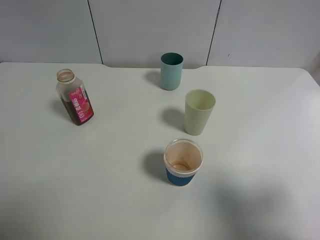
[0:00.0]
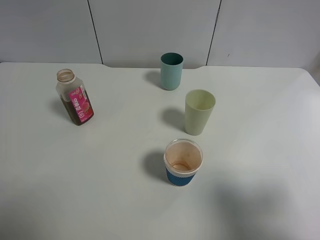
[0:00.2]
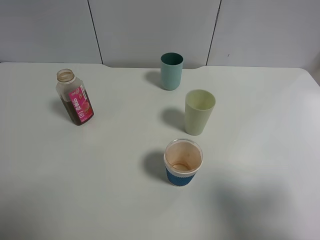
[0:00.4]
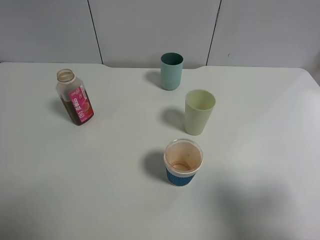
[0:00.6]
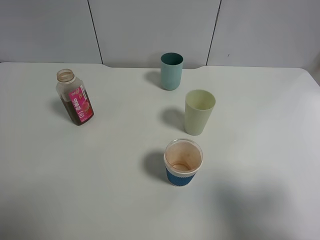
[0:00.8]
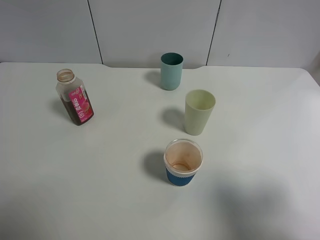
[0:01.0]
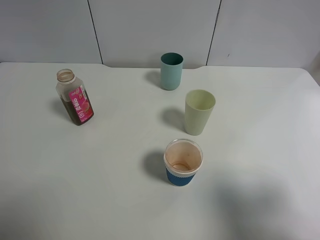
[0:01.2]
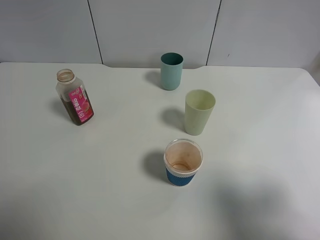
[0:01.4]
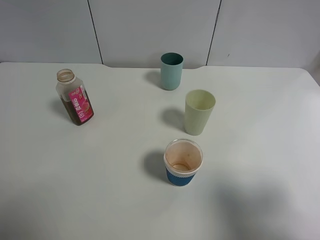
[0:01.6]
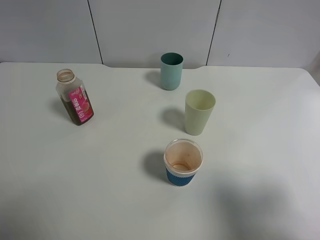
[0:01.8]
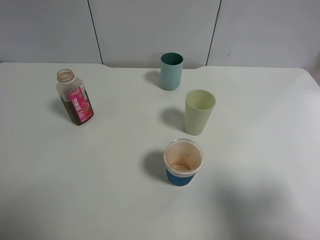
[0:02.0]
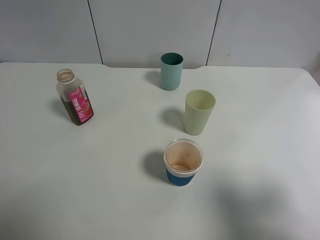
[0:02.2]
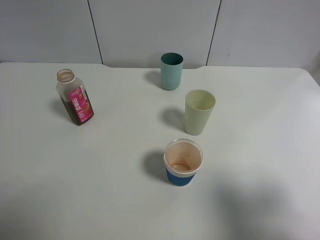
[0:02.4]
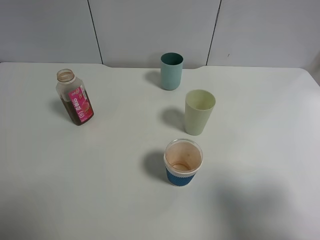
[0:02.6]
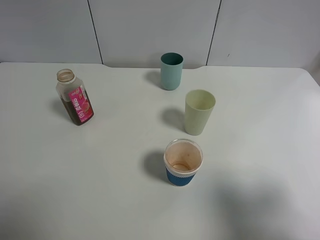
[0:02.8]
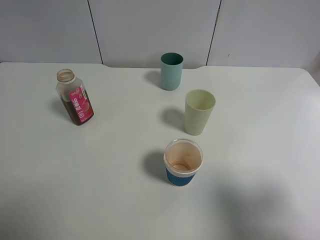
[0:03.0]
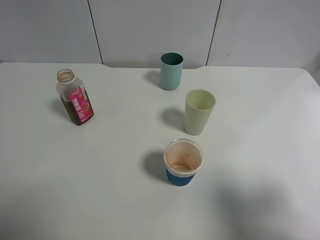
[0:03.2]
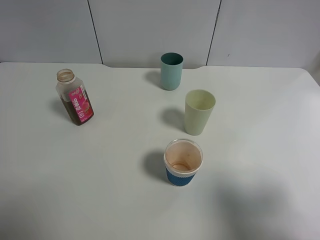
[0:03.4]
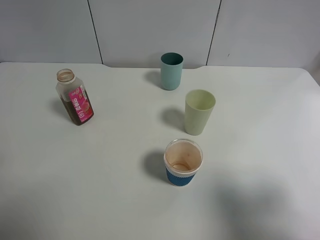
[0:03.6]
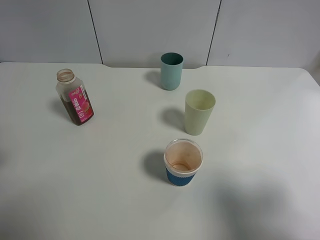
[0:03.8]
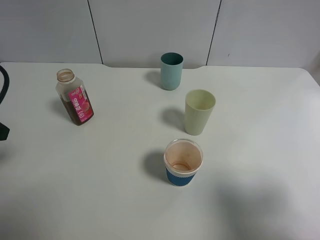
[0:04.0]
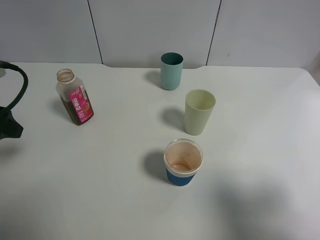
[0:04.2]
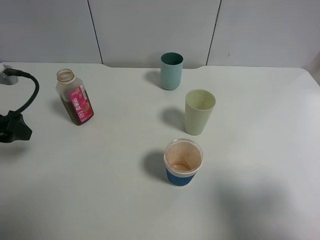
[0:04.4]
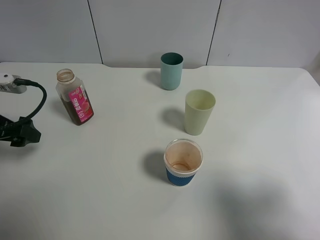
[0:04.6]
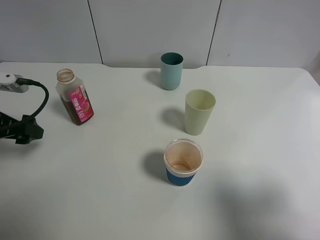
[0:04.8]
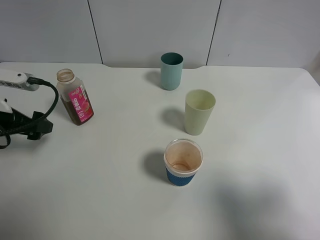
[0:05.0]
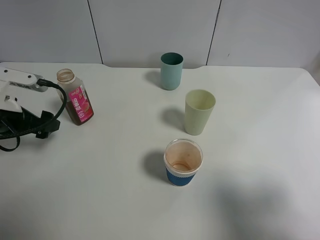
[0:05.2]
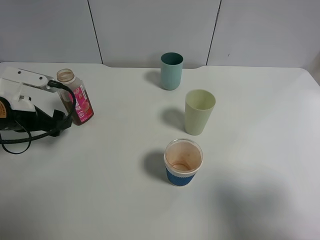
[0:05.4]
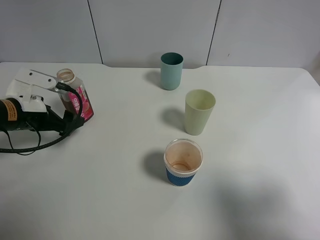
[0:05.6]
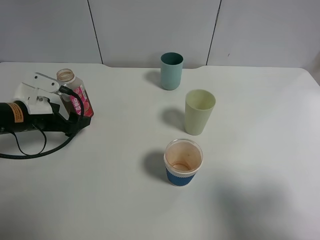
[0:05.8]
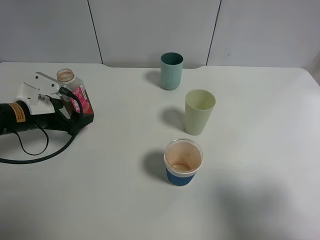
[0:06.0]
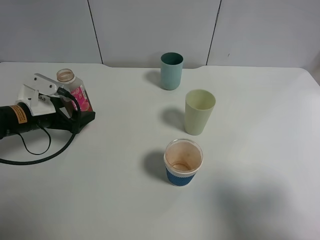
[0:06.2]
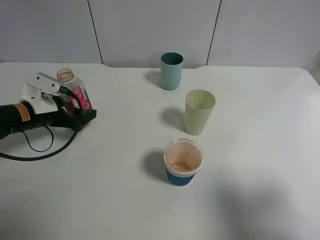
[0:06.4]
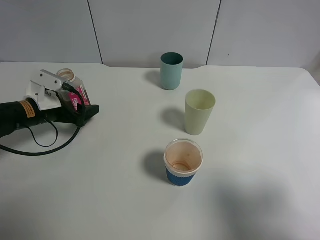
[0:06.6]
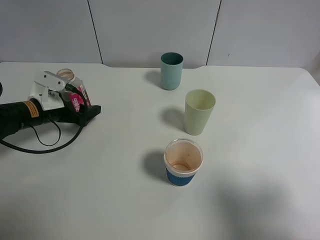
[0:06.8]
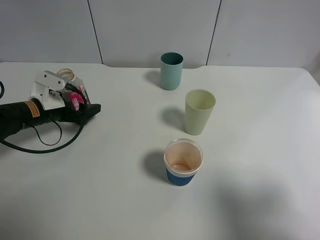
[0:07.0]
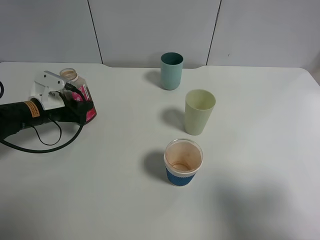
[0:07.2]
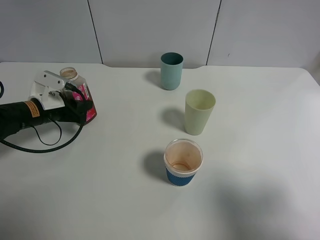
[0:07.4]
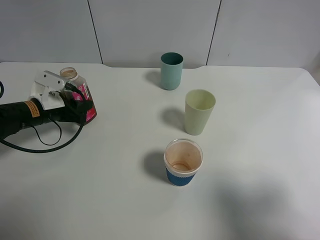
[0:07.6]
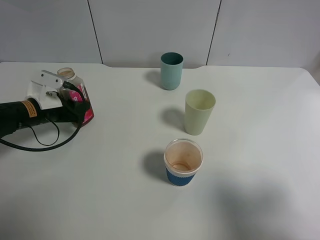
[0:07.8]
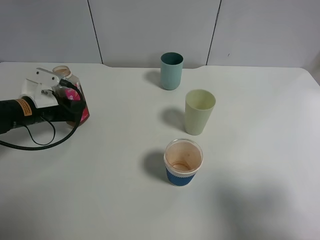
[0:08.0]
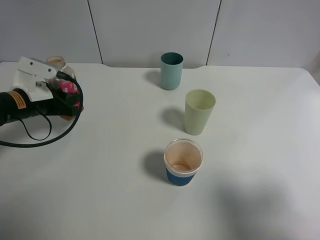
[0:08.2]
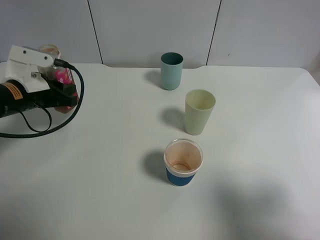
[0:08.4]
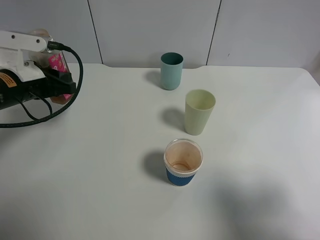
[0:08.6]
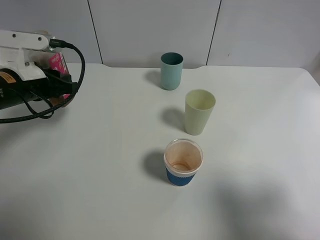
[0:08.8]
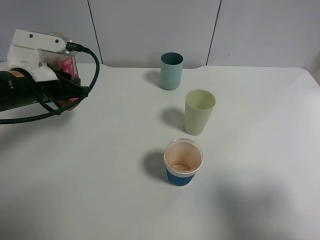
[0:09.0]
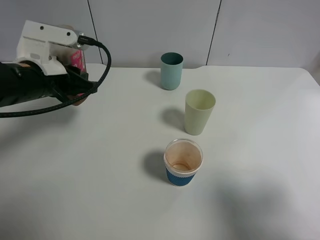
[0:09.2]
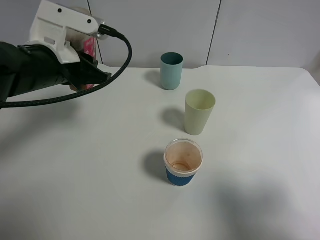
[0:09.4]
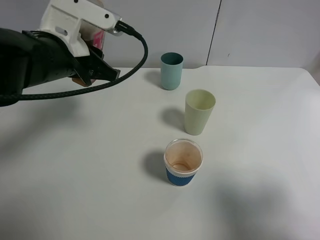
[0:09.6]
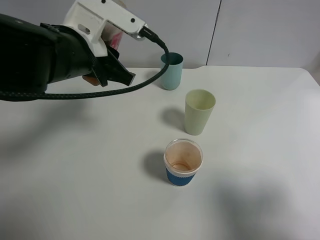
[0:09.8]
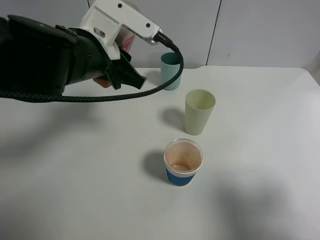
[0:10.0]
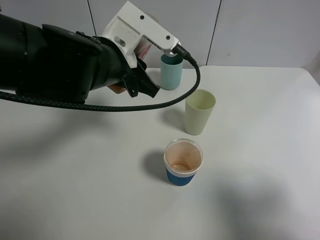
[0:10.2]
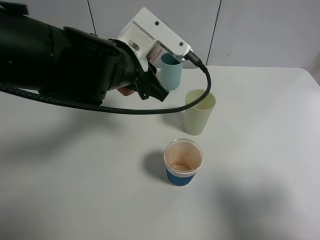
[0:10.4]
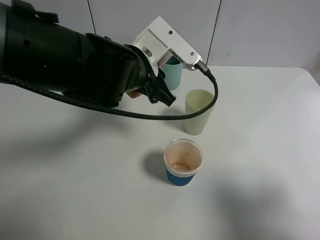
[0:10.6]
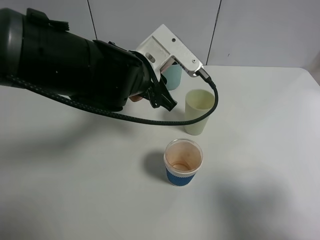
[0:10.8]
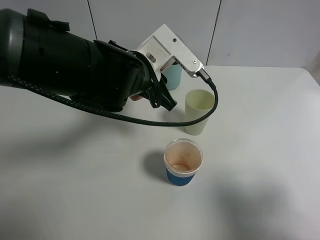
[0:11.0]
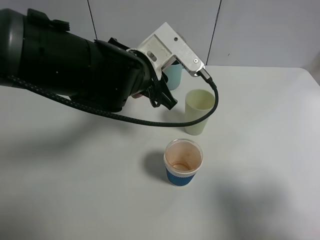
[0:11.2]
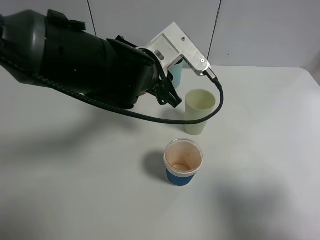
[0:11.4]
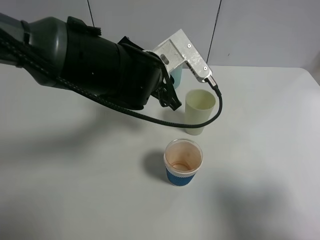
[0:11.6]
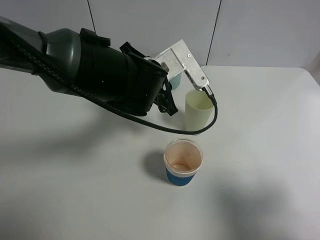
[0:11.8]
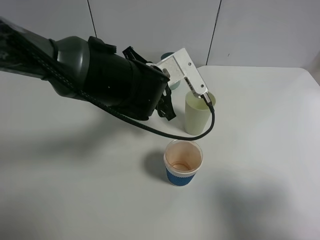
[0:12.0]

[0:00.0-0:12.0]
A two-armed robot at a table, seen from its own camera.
Task of the whole recording: use a gripper to hold the bottle of the drink and pour it into a random cup.
Step, 0:00.0 to 0:07.6: Grasp the cranberry juice bottle with the left gripper.
0:00.0 to 0:01.6: Both grippers stay put.
0:03.0 to 0:04.4: The left gripper goes roughly 20 cm forward and downward.
0:04.4 to 0:06.0: The left gripper moves downward and forward, about 10 cm.
0:06.0 to 0:07.6: The left gripper closes up.
0:07.6 to 0:09.0: The left gripper moves upward, approximately 10 cm.
0:09.0 to 0:10.4: The left gripper goes some 15 cm to the right.
0:10.4 to 0:12.0: The left gripper heads downward, covering about 5 cm.

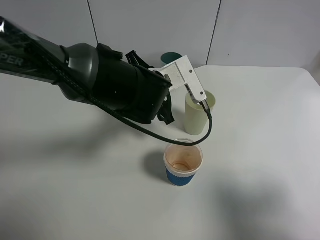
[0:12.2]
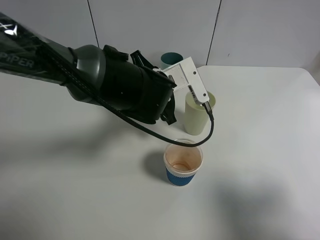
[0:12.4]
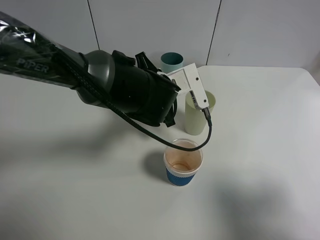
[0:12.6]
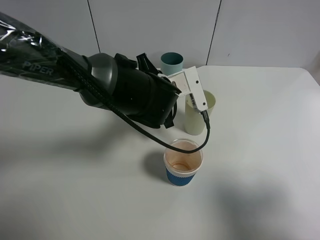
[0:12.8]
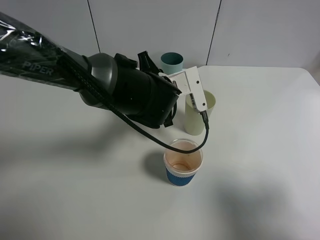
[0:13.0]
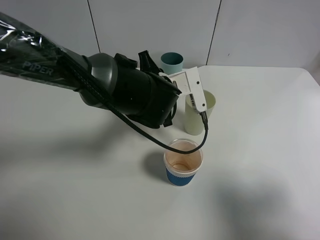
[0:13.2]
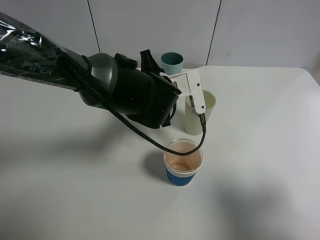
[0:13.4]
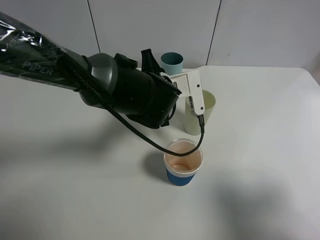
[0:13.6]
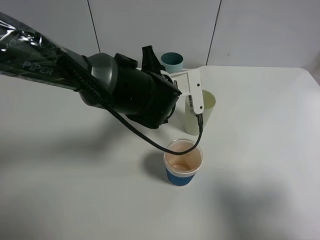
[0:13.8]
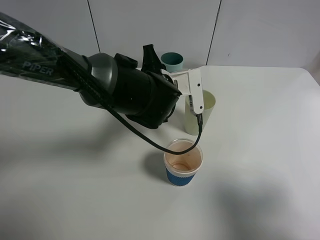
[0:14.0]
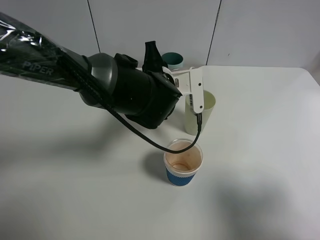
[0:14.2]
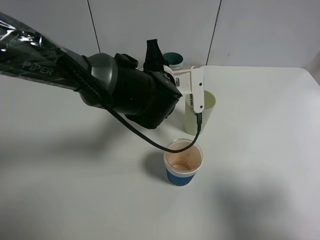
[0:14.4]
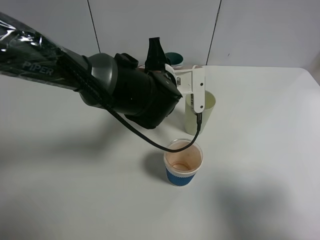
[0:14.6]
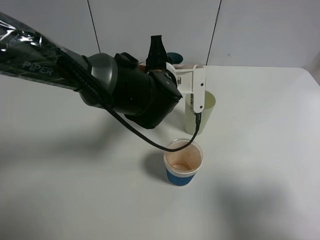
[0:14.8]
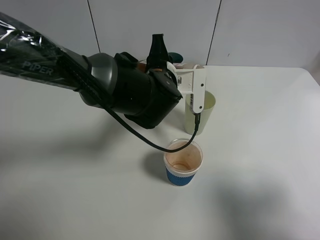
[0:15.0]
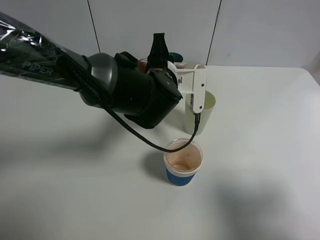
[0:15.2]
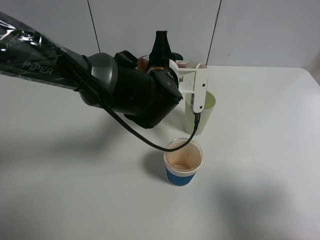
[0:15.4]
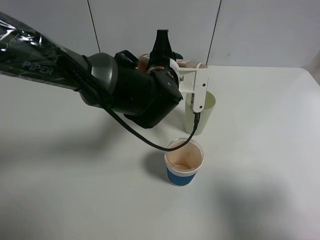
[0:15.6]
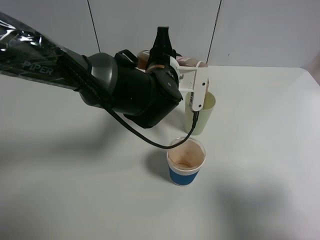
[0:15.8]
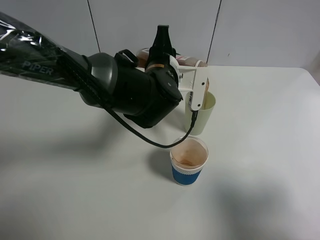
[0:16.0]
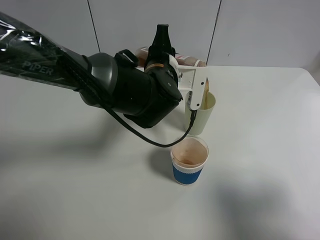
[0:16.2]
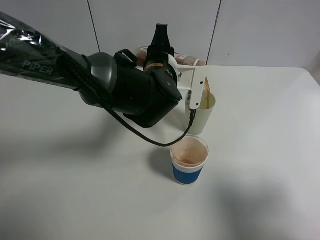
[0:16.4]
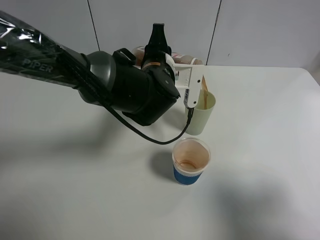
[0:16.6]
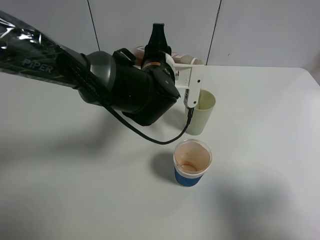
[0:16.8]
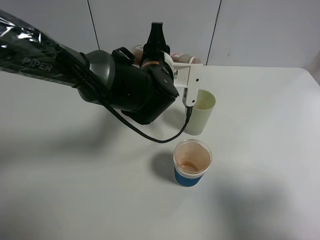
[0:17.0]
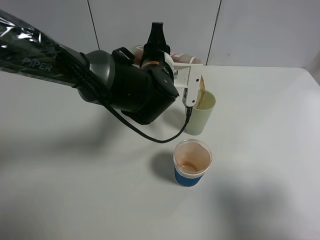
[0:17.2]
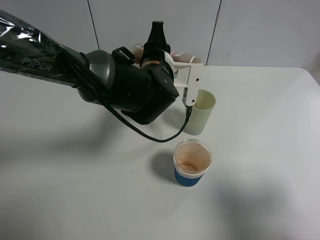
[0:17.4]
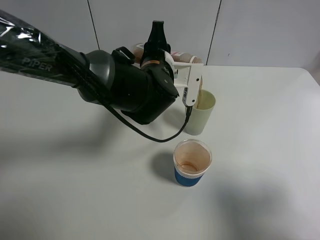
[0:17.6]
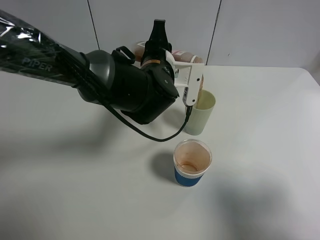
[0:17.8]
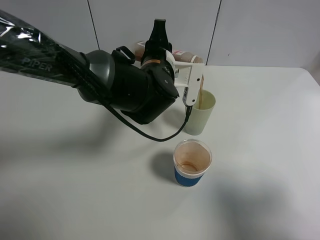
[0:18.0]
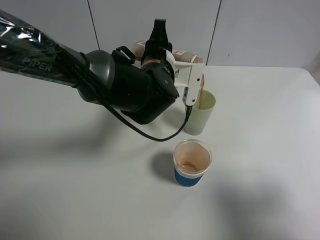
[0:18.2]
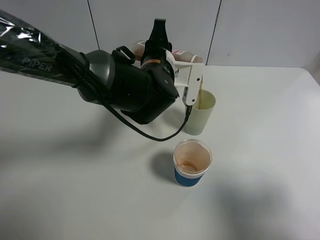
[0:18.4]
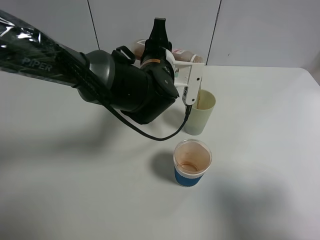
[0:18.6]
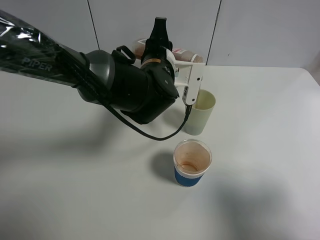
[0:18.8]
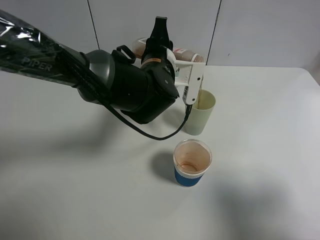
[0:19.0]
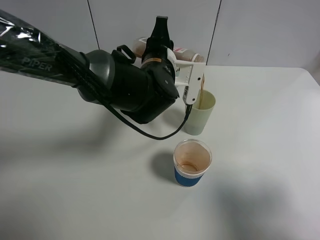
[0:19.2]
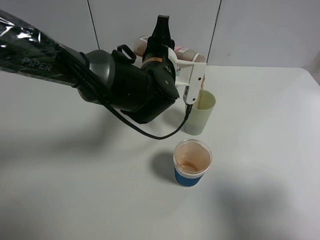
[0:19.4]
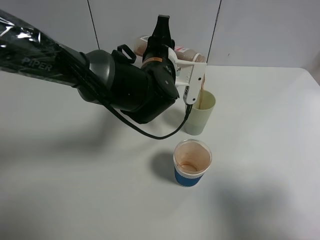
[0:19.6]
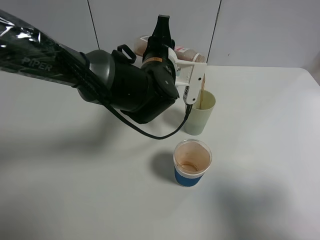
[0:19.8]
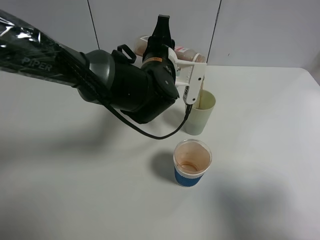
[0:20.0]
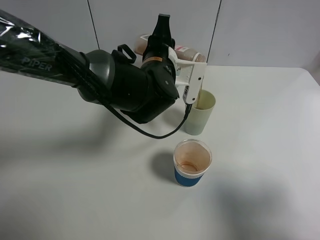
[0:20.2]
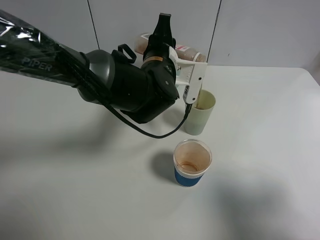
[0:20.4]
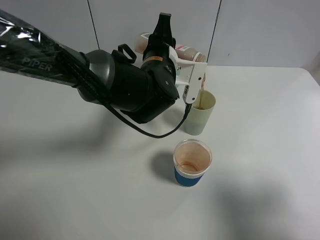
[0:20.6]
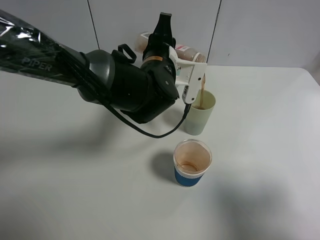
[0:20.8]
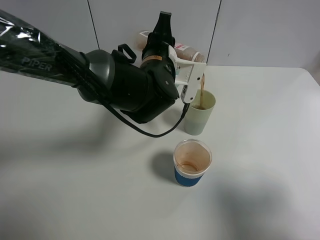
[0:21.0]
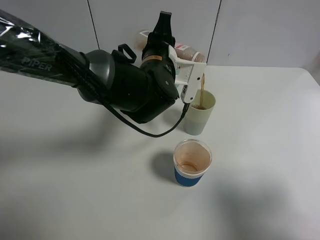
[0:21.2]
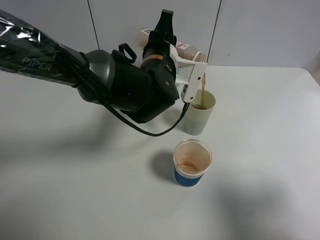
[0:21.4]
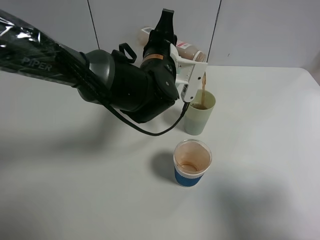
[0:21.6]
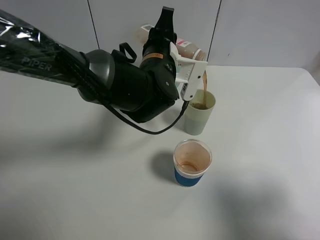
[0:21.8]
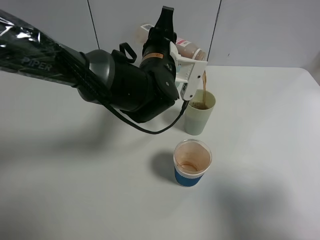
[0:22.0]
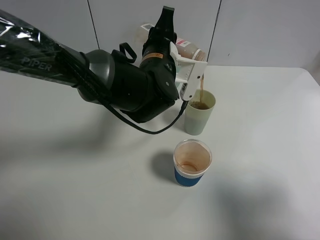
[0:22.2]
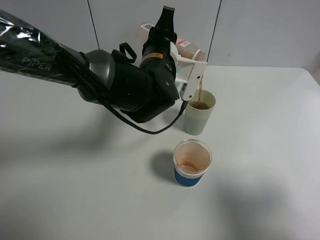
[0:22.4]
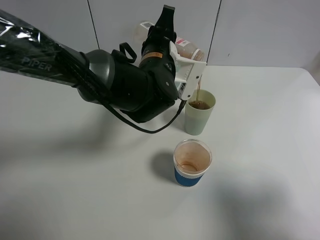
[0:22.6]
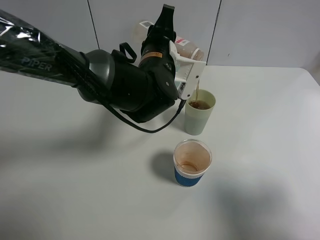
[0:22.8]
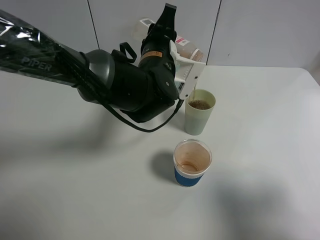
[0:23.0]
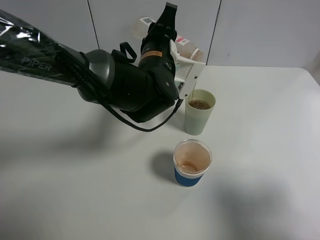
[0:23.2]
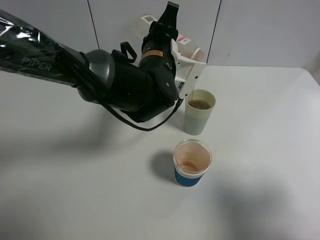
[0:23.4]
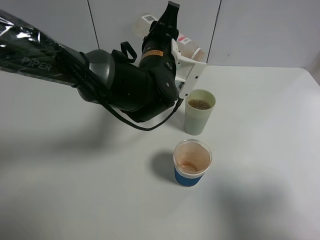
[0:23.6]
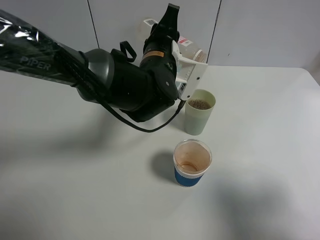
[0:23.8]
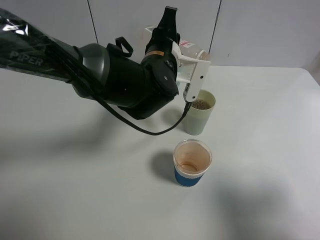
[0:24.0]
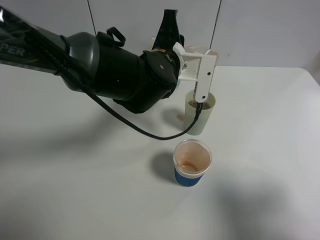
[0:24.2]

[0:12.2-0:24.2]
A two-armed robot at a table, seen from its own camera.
Task of the whole recording: use a gripper to hold the bottle of the drink and pour it into a random cup.
0:12.2 to 0:13.8: The grippers make only small movements.
0:13.8 to 0:15.2: The grippers move only a little.
0:15.2 to 0:16.6: The grippers stay close to where they were, moving slightly.
0:16.6 to 0:18.2: The two grippers keep their place.
0:18.2 to 0:19.8: Neither gripper changes place.
0:19.8 to 0:21.2: The two grippers keep their place.
0:21.2 to 0:22.6: There are only small adjustments of the grippers.
